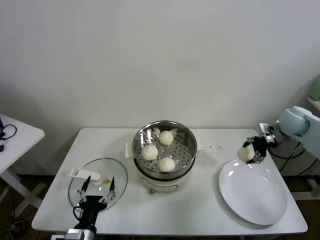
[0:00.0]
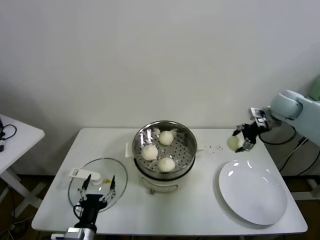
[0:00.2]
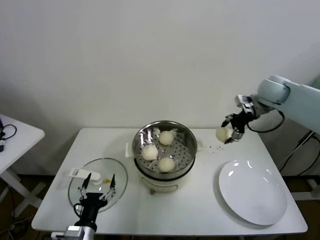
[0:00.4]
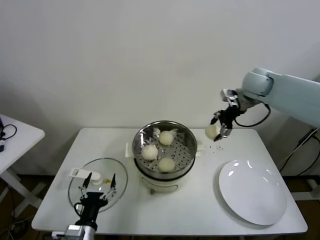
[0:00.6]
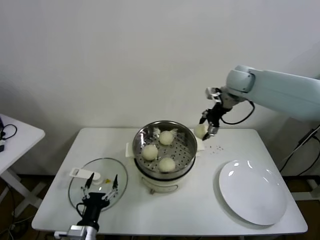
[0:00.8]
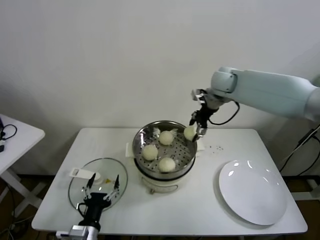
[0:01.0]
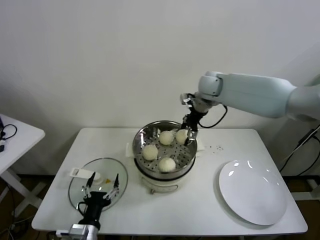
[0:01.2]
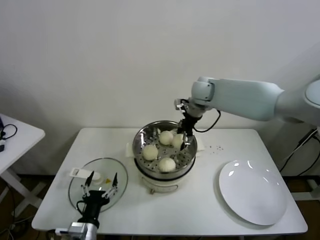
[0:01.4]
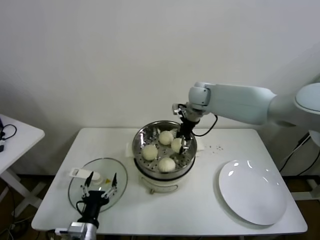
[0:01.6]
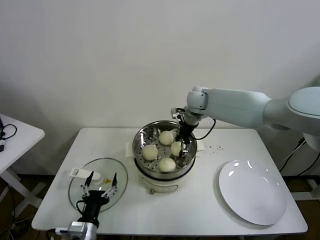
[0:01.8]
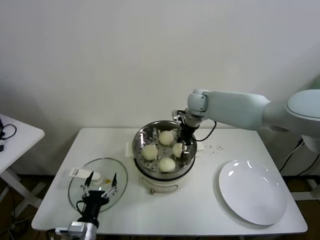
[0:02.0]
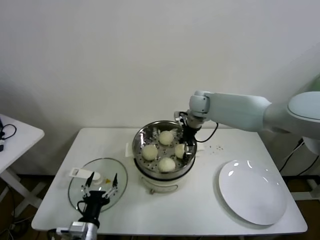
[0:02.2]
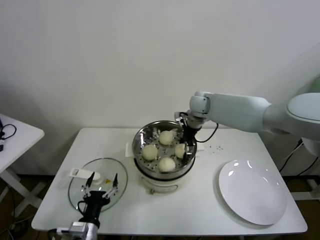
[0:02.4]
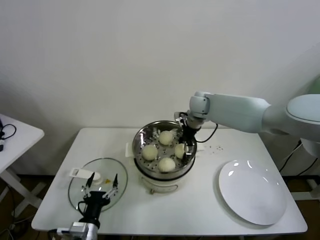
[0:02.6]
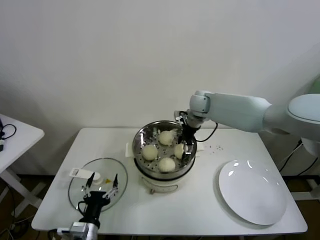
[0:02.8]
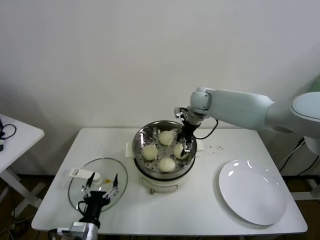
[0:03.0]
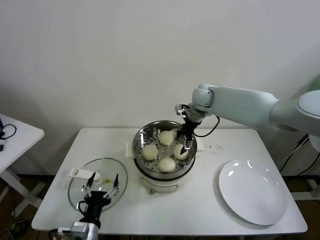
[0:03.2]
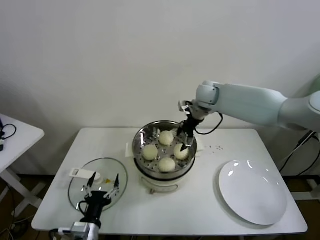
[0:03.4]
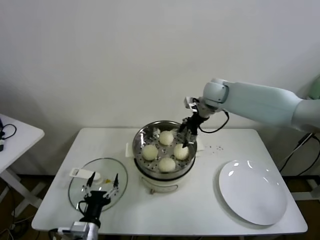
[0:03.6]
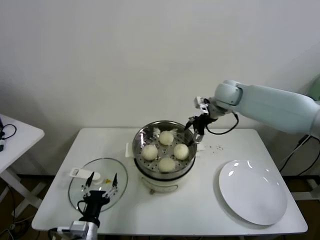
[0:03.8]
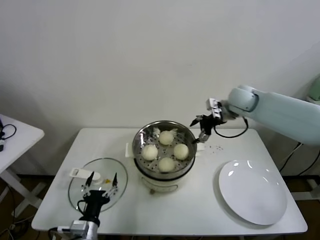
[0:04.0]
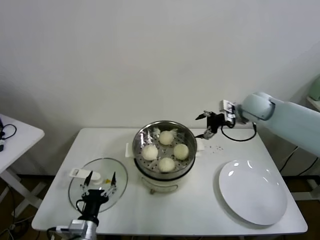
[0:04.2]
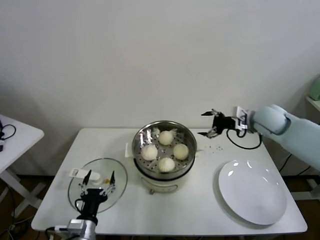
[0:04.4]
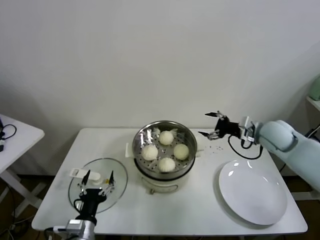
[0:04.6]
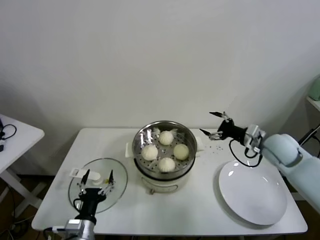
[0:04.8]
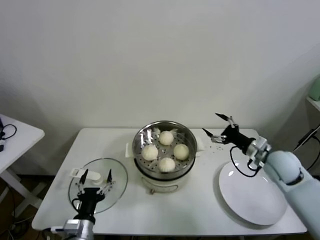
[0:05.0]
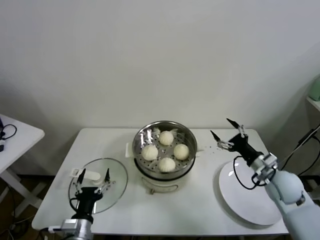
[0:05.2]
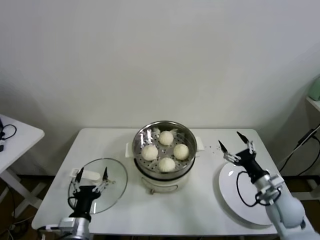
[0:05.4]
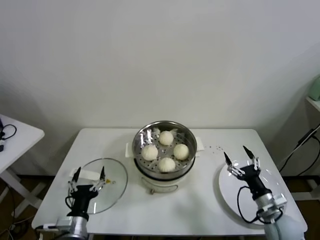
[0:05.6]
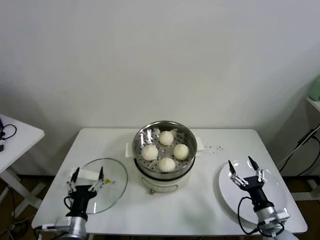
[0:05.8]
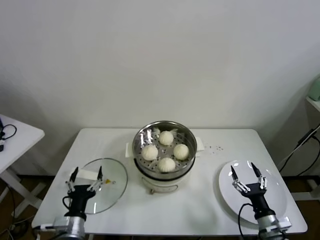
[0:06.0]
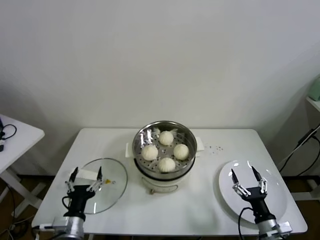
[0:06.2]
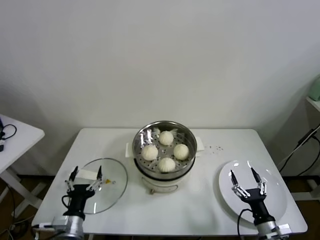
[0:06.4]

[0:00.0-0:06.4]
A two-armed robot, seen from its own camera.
Task of the whole recording: take steamed baozi put them in steamer.
Step, 0:00.0 to 0:02.8: Place the baozi on the steamer with right gripper.
0:00.0 to 0:01.6: The right gripper shifts some 30 cm to the left.
0:01.6 to 0:03.2: The right gripper opens up.
0:03.2 to 0:04.8: The right gripper goes roughly 25 cm to the right and backward.
0:04.8 to 0:06.4: The right gripper moves backward and downward, about 35 cm.

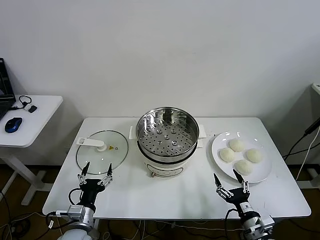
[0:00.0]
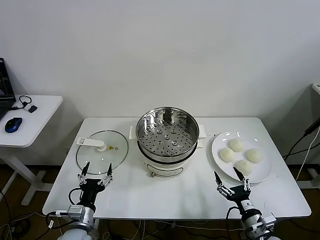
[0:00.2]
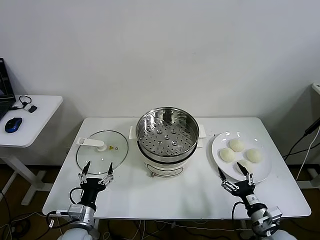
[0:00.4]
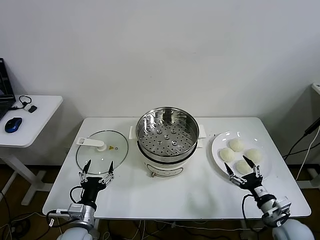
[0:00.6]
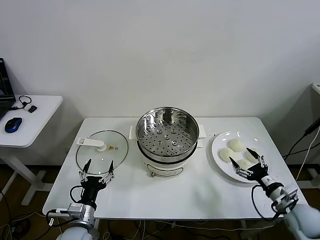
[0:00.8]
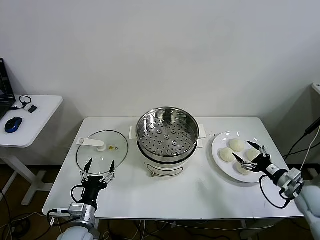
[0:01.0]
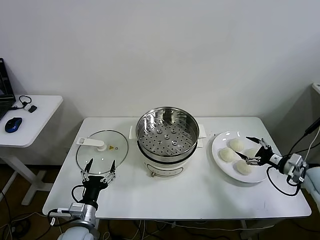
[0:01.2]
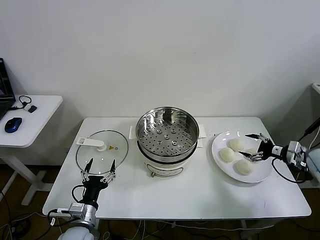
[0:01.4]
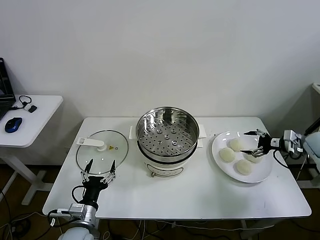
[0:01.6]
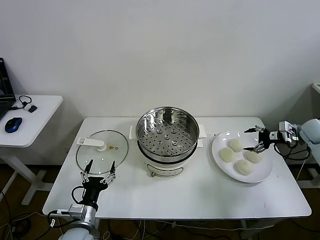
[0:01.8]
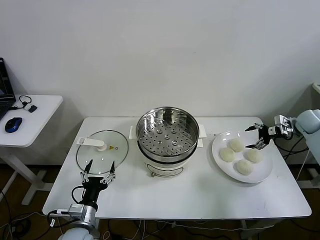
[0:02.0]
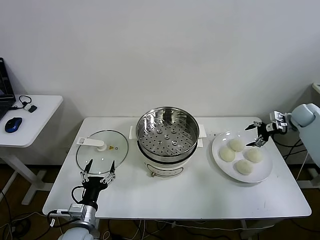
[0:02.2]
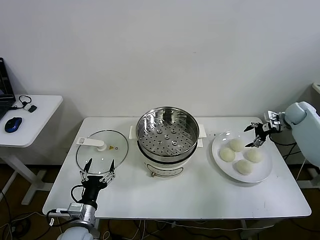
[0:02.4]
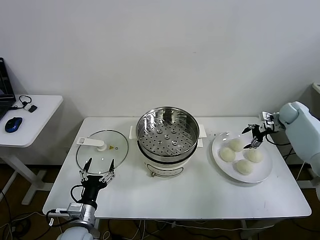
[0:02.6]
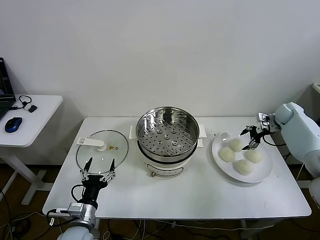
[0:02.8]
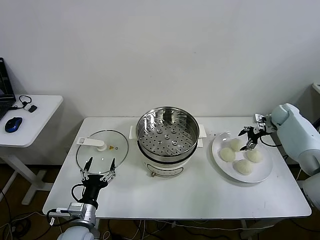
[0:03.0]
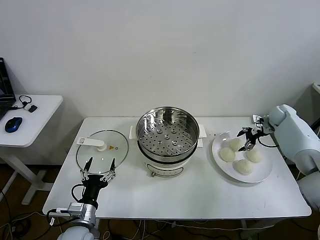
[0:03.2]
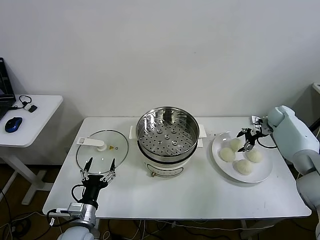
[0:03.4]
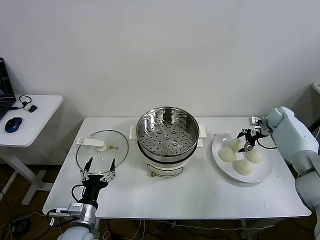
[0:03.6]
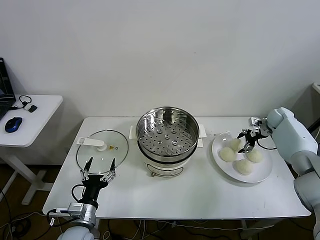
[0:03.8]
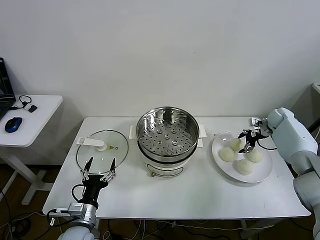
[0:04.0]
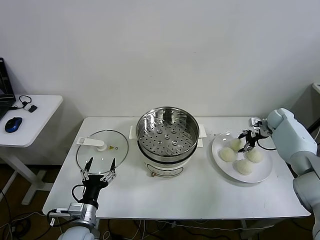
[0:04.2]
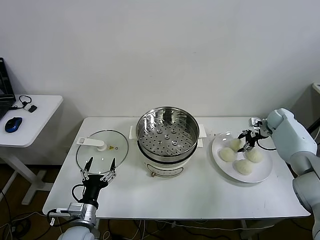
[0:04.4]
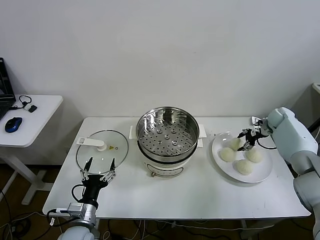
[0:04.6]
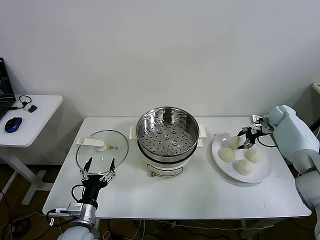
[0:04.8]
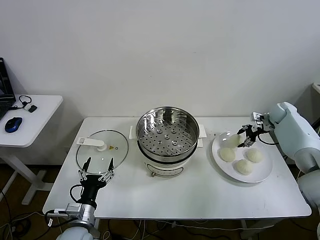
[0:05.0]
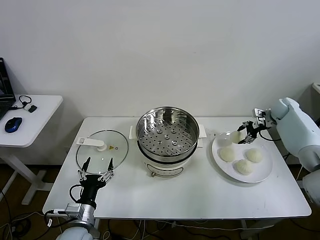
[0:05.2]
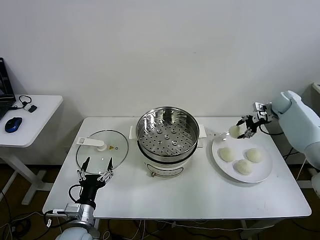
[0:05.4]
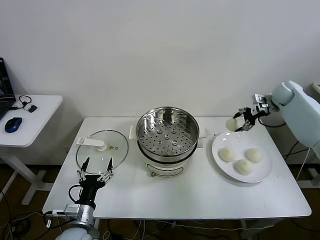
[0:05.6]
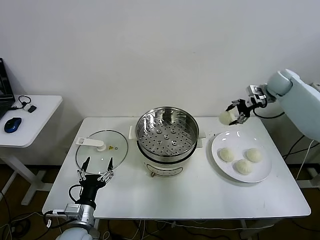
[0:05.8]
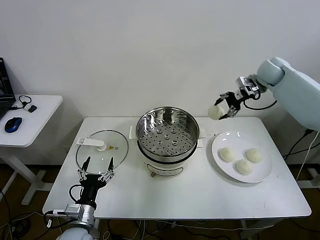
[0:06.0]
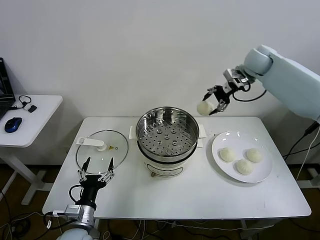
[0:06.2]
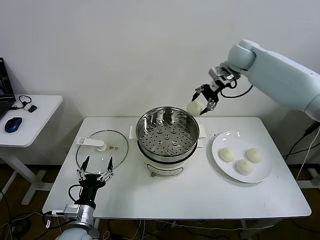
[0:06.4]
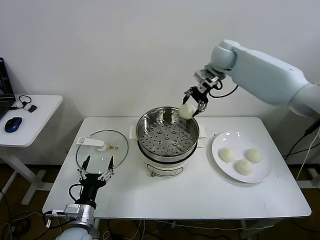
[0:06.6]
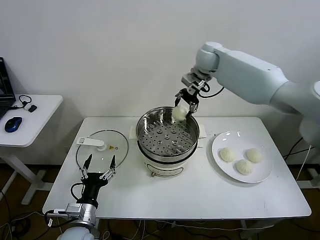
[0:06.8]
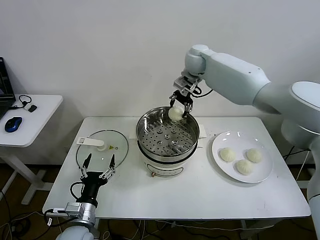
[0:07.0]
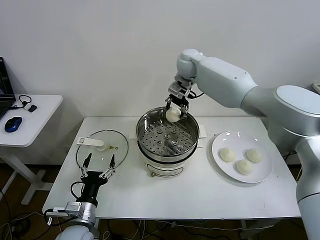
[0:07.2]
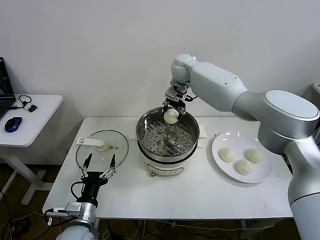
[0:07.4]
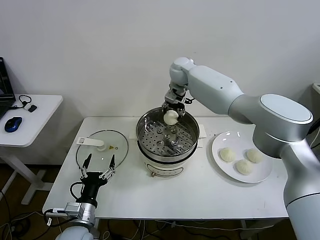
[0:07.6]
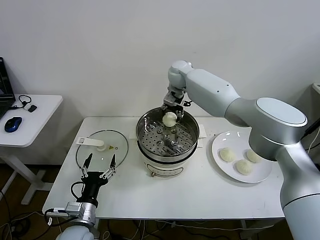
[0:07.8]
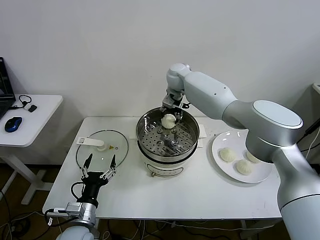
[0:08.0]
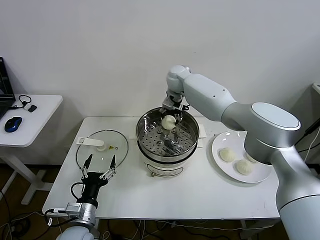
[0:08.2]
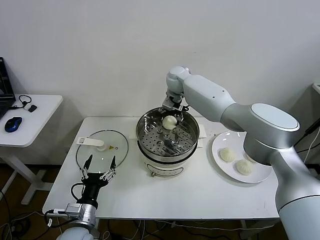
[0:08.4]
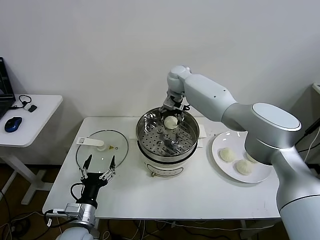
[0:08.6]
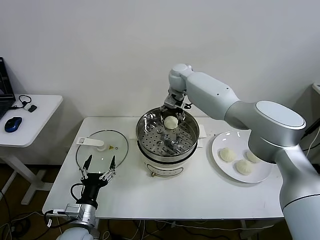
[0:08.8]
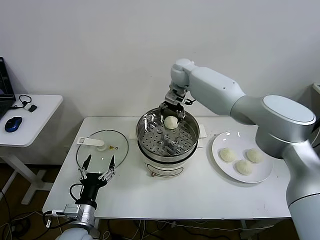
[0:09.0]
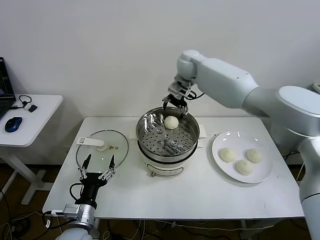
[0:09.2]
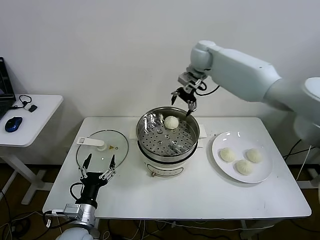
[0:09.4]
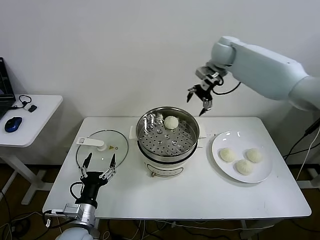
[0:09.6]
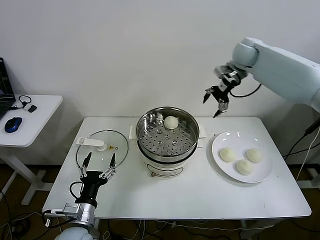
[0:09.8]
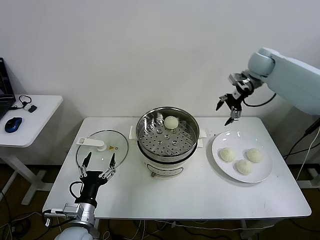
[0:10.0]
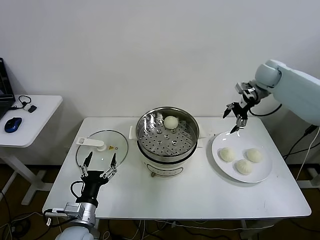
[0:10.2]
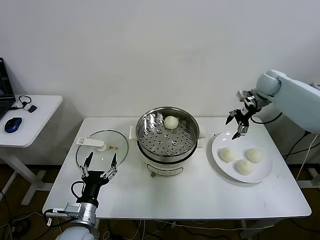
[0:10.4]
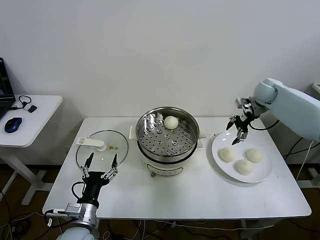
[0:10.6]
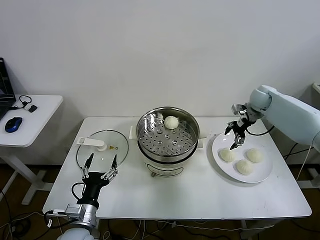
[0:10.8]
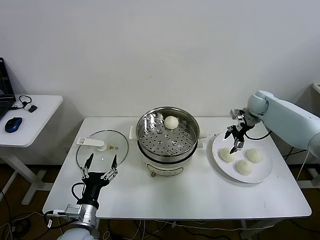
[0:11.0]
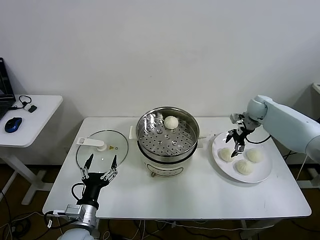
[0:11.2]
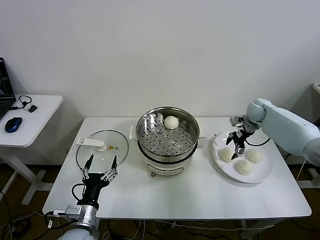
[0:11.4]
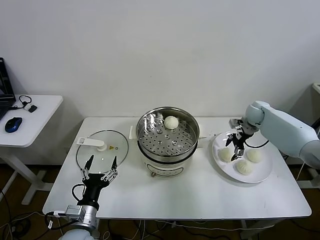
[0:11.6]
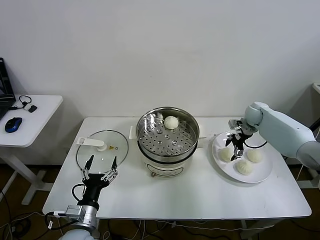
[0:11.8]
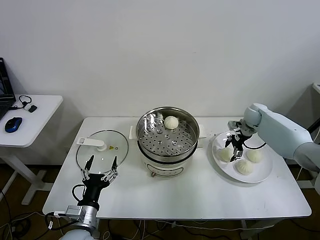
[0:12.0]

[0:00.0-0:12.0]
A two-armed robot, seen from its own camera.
Task of the whole recording: take steamed baozi put them in steamer.
Step, 0:00.0 to 0:04.4: Grasp the baozi in the plate with right gripper.
Step, 0:04.6 to 0:08.8: Place the baozi on the steamer with right gripper.
0:01.6 to 0:03.0: The right gripper shifts about 15 cm forward.
0:03.0 to 0:04.4: The right gripper closes its fingers.
0:04.4 to 0:06.0: The right gripper heads upward and to the left, covering roughly 30 cm.
0:06.0 to 0:07.6: The right gripper travels to the left by about 30 cm.
0:07.6 to 0:09.0: The right gripper opens up.
0:09.0 to 0:10.4: The right gripper moves to the right, approximately 30 cm.
0:10.4 to 0:12.0: The right gripper heads downward, covering some 15 cm.

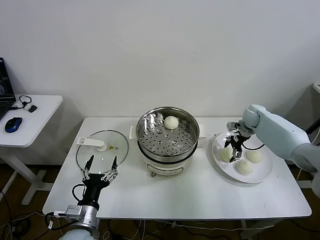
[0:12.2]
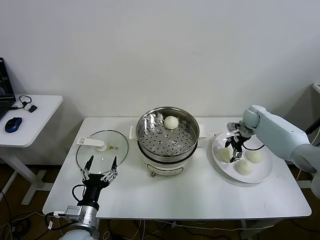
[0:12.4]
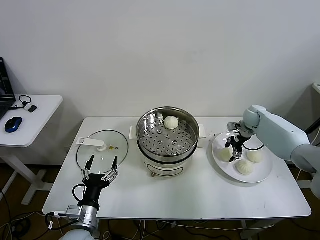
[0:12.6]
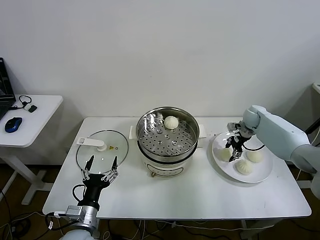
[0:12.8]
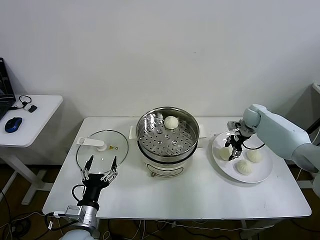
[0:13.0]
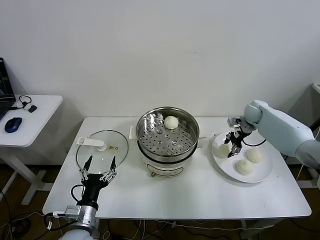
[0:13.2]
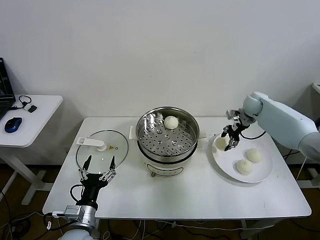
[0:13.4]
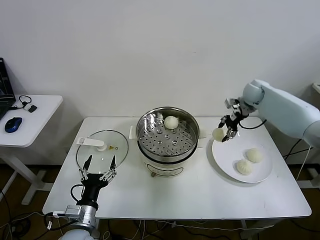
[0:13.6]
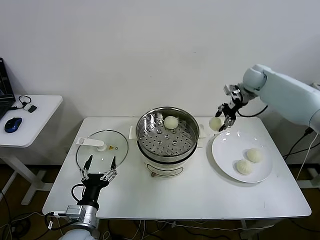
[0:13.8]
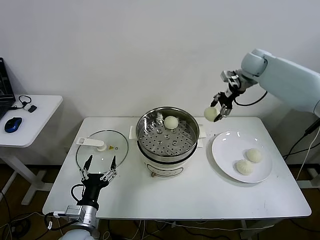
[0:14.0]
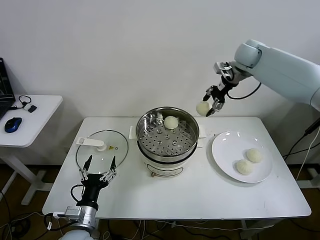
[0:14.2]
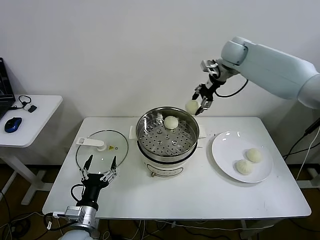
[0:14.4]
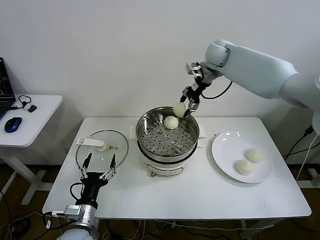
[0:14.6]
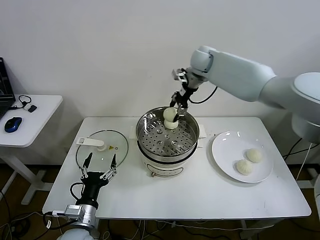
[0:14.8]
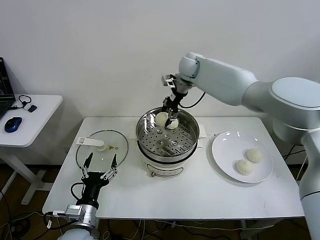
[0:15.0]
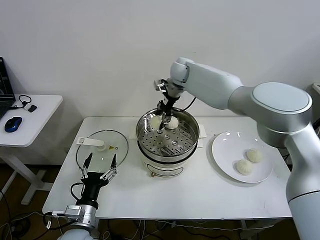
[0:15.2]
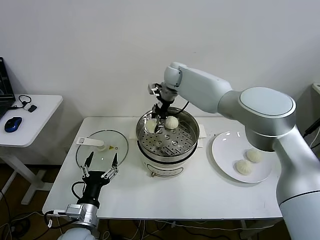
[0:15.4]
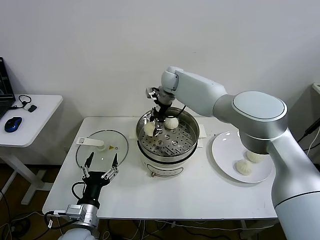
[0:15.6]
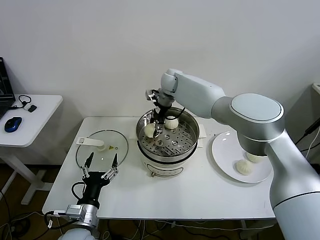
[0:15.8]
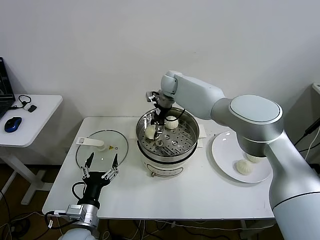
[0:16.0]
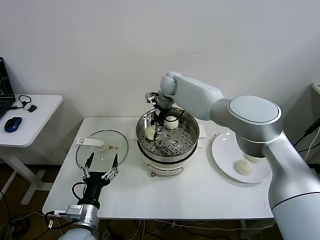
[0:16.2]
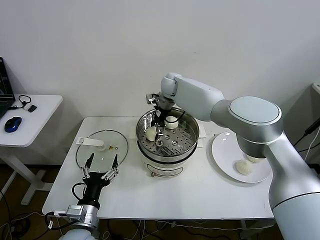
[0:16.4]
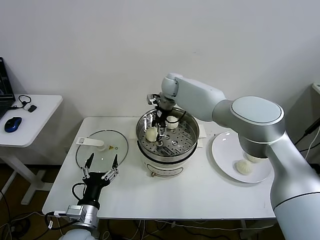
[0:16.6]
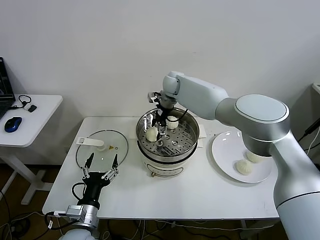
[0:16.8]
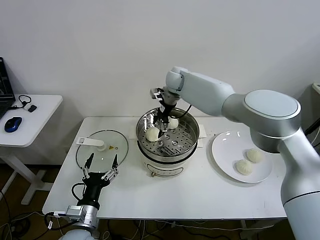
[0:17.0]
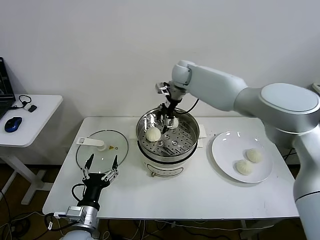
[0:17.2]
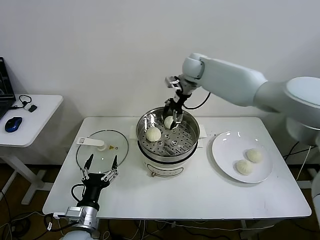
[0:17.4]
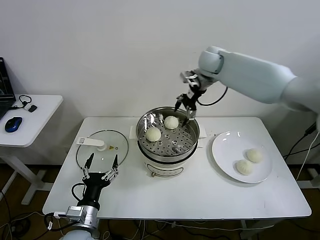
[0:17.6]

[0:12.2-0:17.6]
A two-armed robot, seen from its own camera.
Task of the whole recording: take steamed baozi put them in steamer.
Step, 0:13.0 to 0:16.6: Place the baozi on the steamer with right gripper.
0:12.2 to 0:13.6: The right gripper travels upward by some 15 cm, and closes.
0:13.6 to 0:15.0: The right gripper heads to the left, covering roughly 25 cm.
0:15.0 to 0:16.2: The right gripper heads downward and to the left, covering roughly 10 cm.
0:16.2 to 0:17.6: The right gripper is displaced to the right and upward by roughly 20 cm, and opens up.
